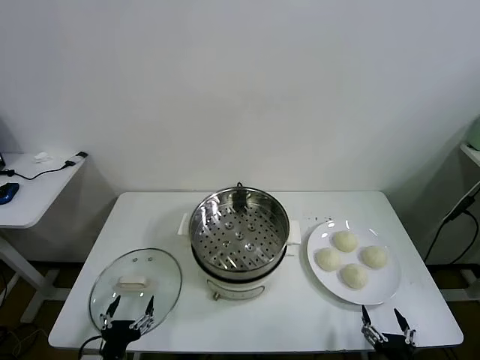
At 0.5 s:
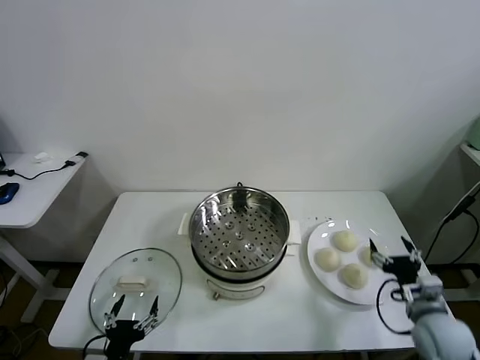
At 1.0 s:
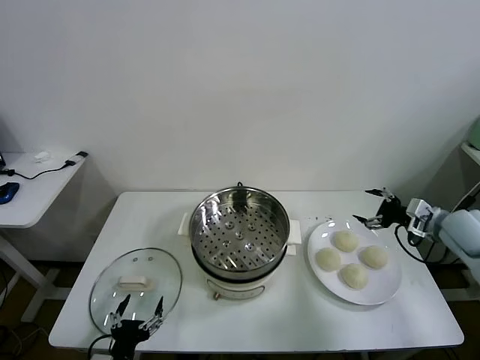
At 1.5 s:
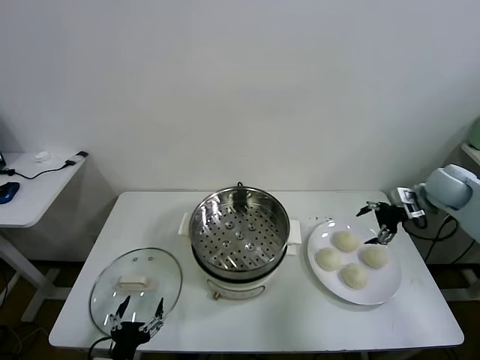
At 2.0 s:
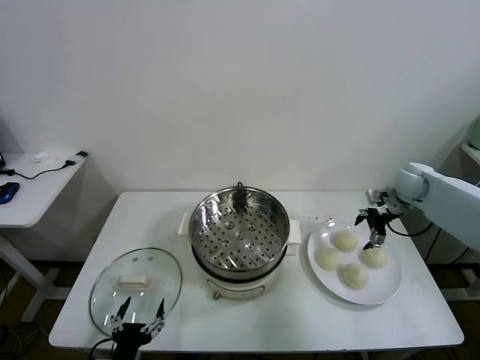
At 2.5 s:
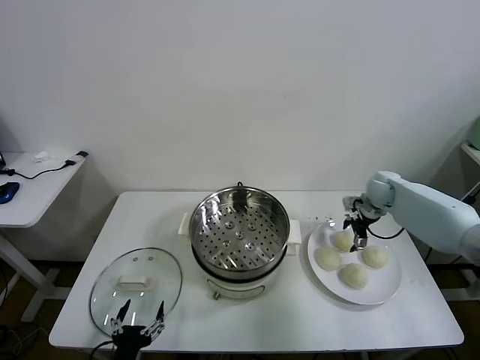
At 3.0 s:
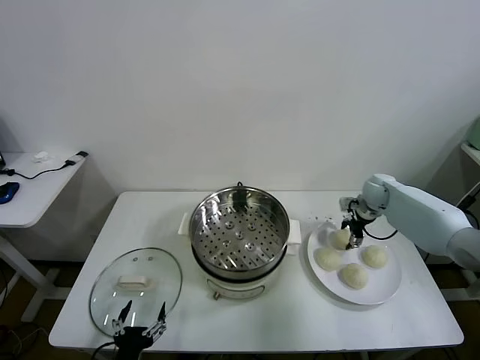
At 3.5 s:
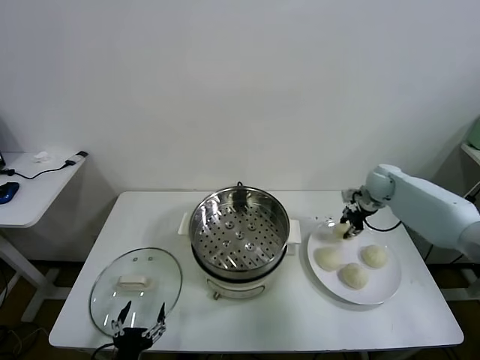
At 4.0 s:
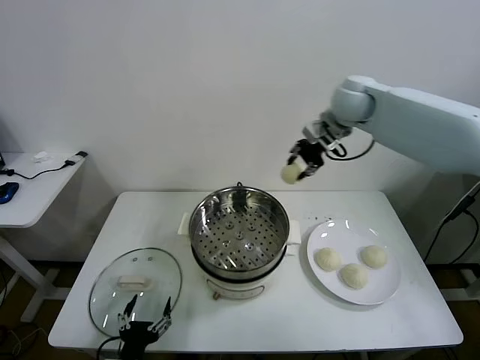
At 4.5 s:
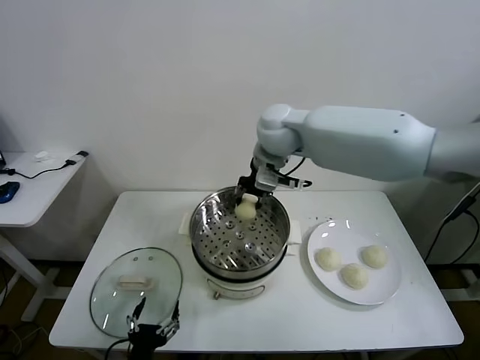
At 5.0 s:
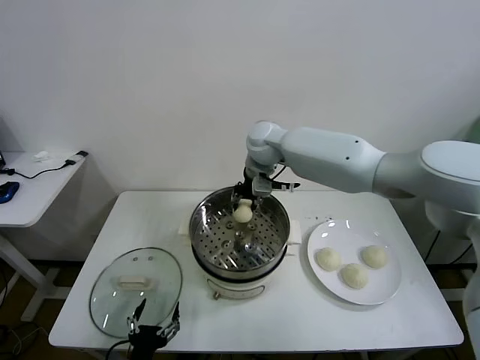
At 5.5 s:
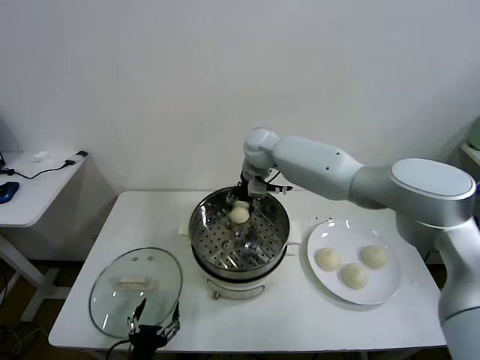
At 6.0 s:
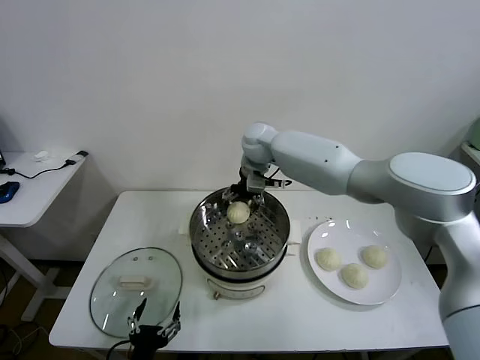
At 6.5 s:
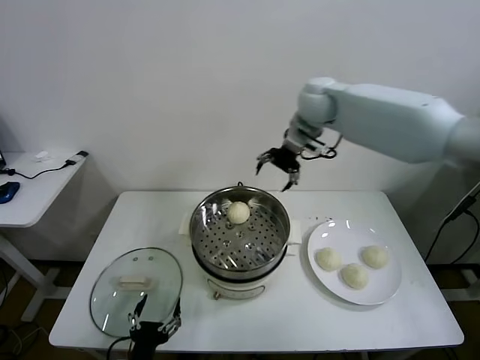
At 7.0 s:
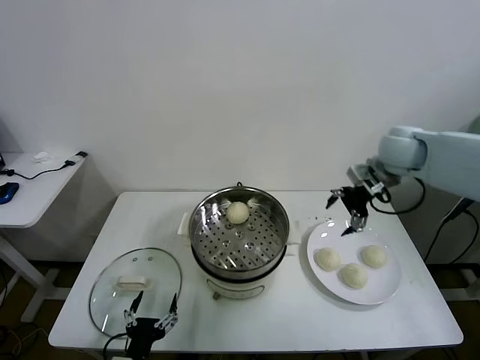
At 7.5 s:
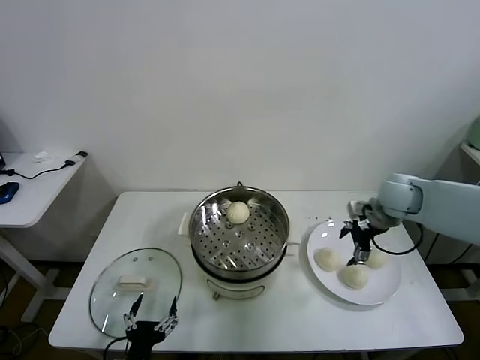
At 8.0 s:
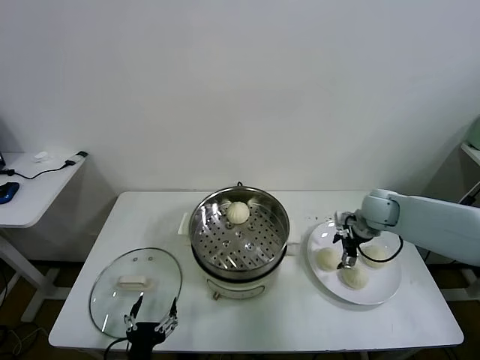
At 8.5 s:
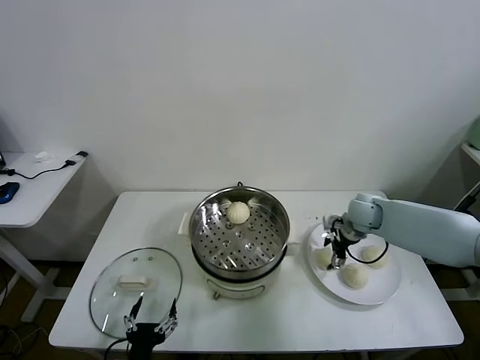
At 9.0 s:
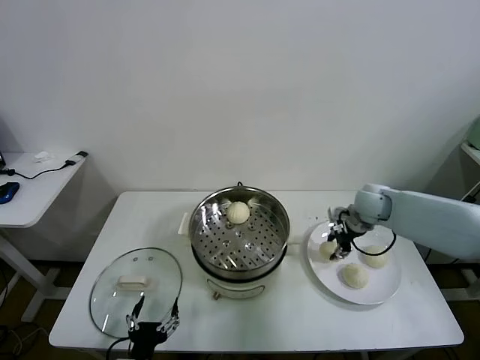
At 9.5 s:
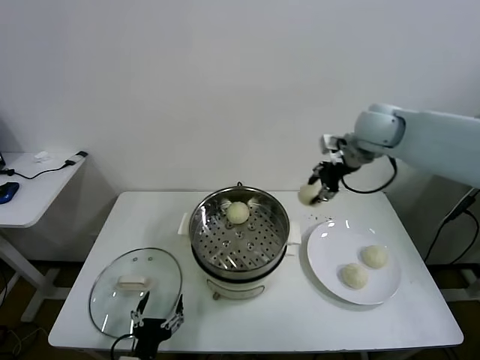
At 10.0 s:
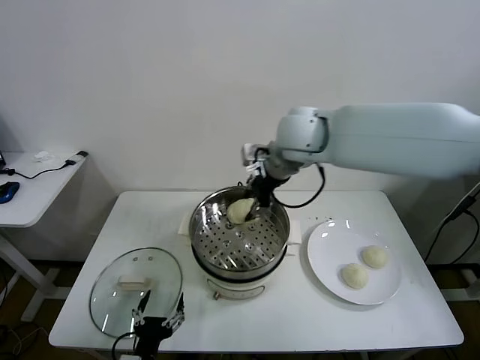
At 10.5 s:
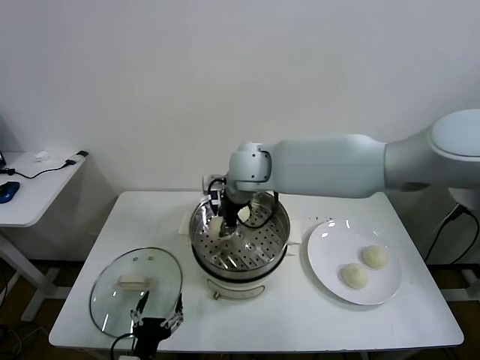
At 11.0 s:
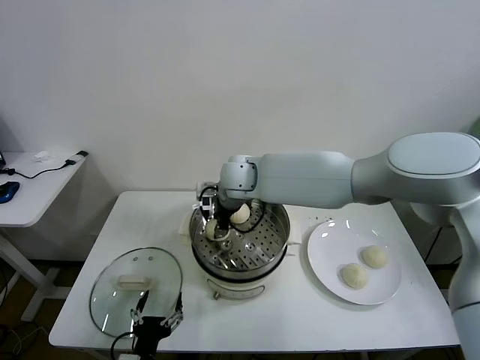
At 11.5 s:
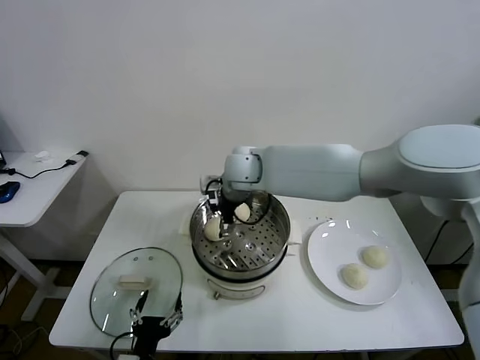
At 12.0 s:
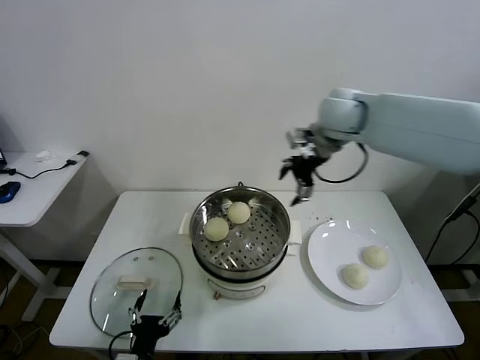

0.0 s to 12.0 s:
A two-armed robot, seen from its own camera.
Task of the whole recording: take steamed baozi put them in steamer.
Step, 0.0 to 3.0 s: Grasp the baozi in the plate with right gripper.
Step, 3.5 to 5.5 s: Place the baozi on the steamer with right gripper.
Step, 6.5 to 8.5 s: Grasp the baozi in the plate with right gripper.
Step, 9.0 to 11.5 s: Place the baozi on the steamer with right gripper.
2.0 to 4.0 s: The right gripper shifts approximately 35 cm to the left and upward, and closes its fingers.
4.0 to 6.0 s: The right gripper moves to the left, downward and forward, about 15 cm, and opens.
6.0 to 8.0 s: The right gripper moves to the right and downward, some 30 cm.
8.0 to 10.0 s: The right gripper is displaced to the left and upward by roughly 35 cm, and closes its fingers.
10.0 to 12.0 s: The right gripper goes roughly 15 cm to the right, and opens up.

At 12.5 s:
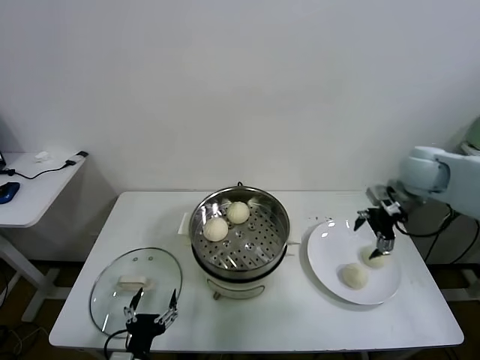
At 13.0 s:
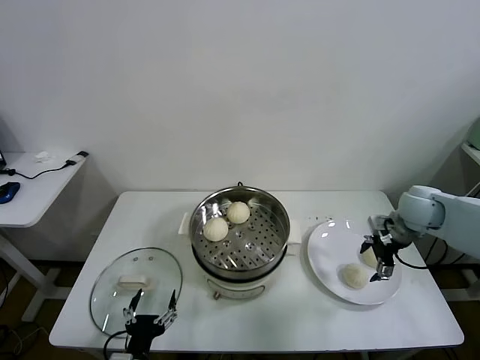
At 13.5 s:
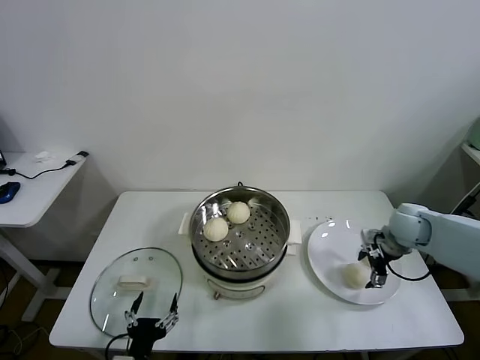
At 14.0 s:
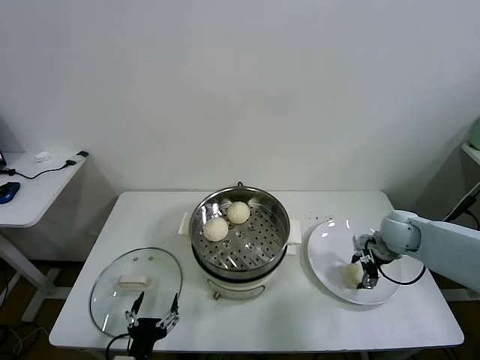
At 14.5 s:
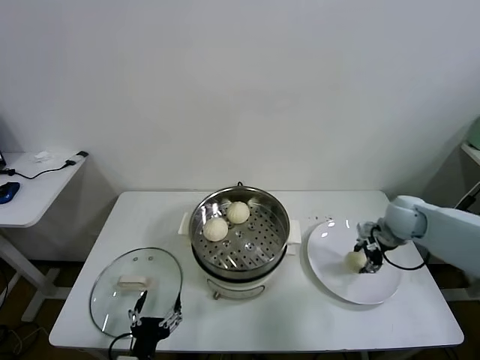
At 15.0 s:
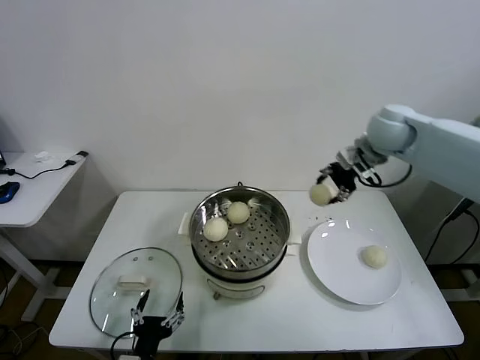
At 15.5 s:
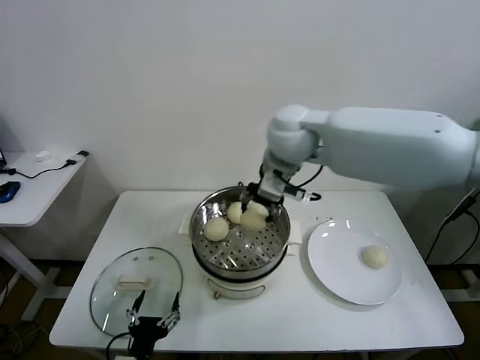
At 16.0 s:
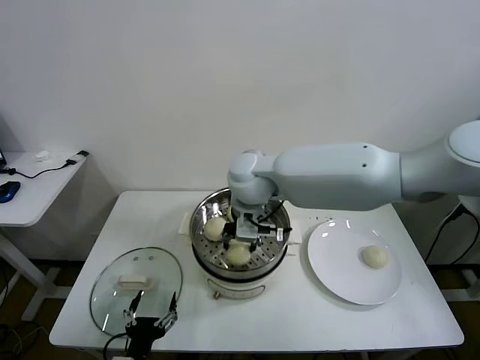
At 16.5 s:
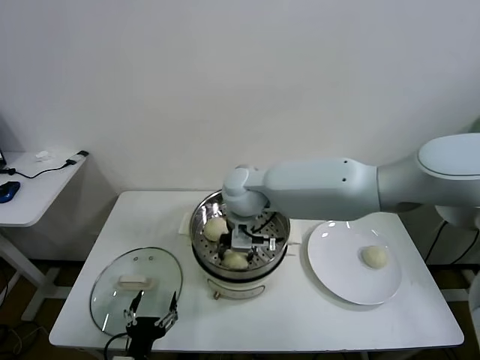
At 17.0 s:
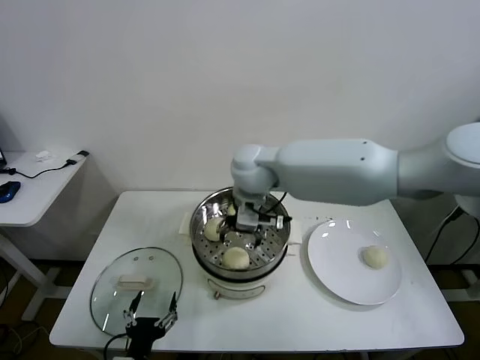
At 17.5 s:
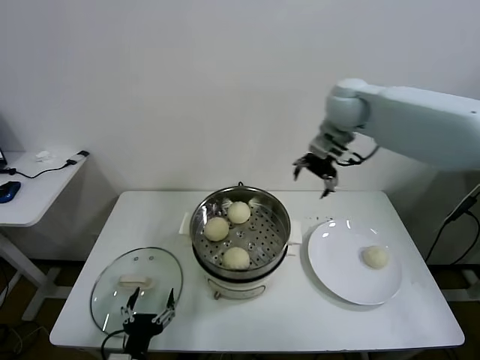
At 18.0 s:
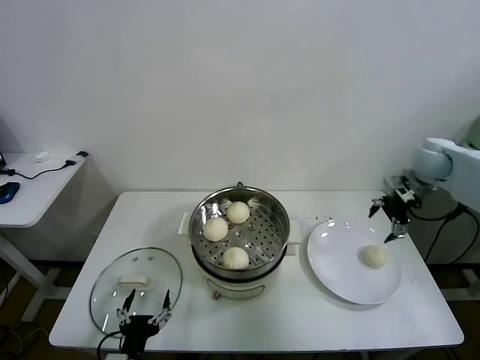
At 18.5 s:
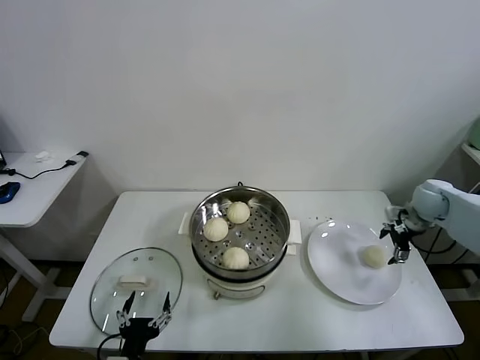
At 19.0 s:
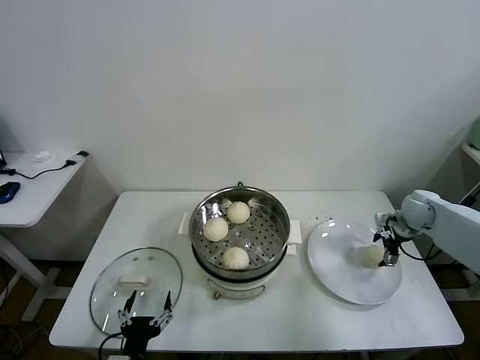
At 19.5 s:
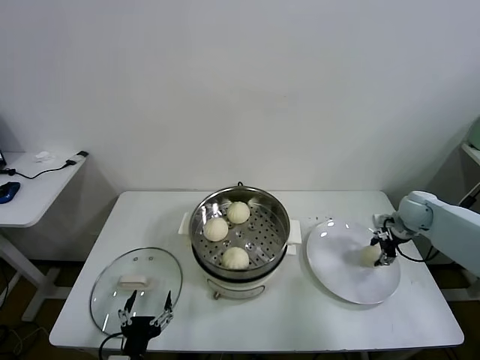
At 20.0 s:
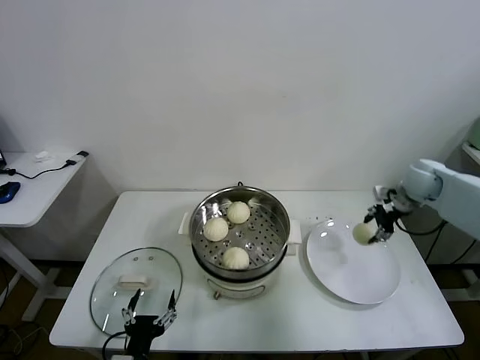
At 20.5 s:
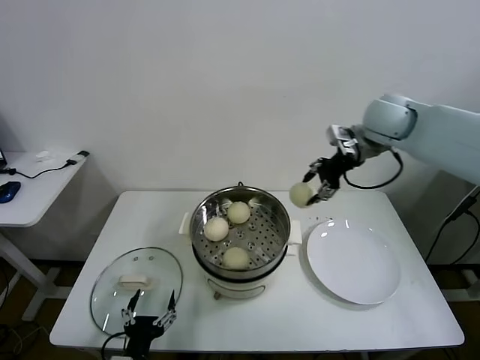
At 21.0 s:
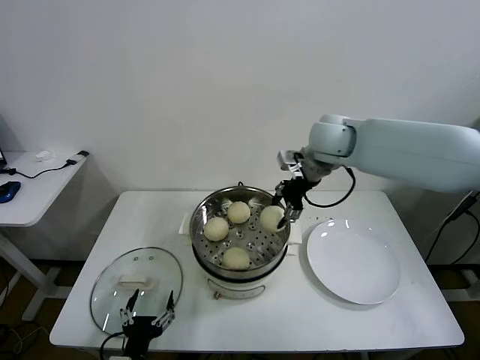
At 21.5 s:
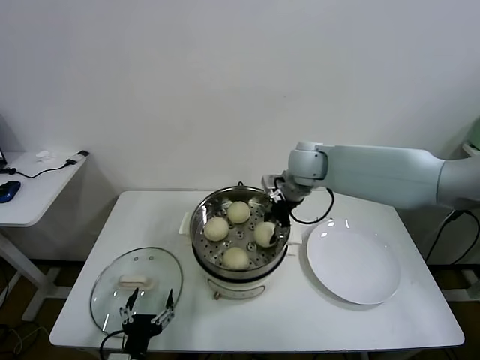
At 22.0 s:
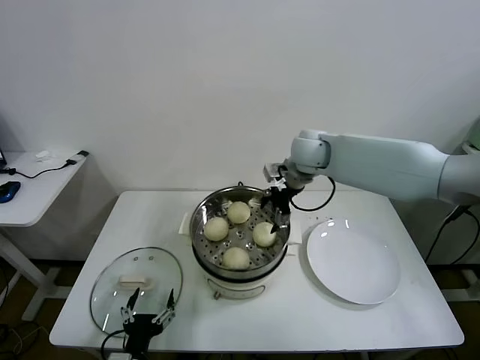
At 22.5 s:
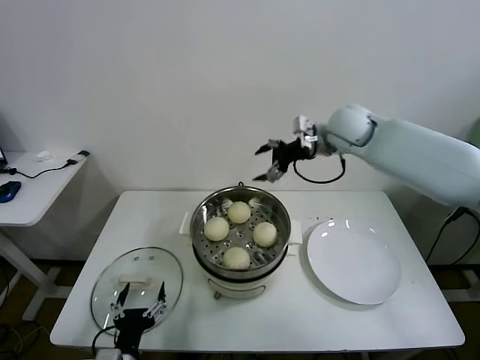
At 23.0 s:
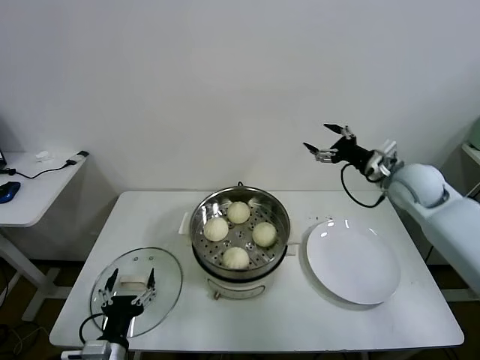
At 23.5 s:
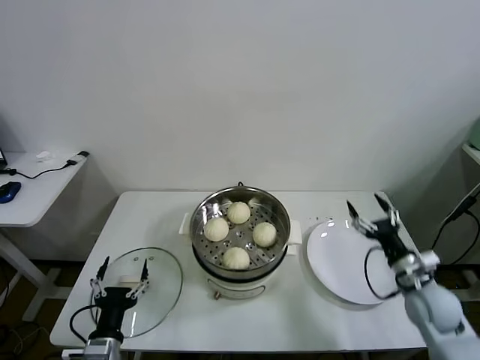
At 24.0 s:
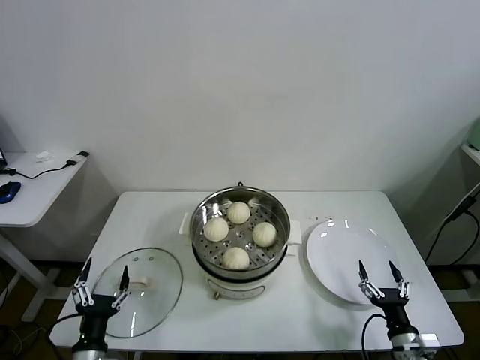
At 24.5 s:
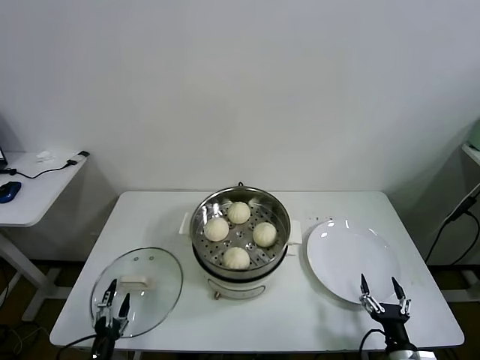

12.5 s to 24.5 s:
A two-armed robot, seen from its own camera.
Task of the whole recording: take steamed baozi put them in steamer.
Step, 12.5 to 14.0 s: Grasp the baozi in the plate with right gripper.
Step, 14.5 to 16.5 s: Place the baozi on the steamer with right gripper.
Step, 17.0 to 19.5 s: Grasp the baozi in the plate with right gripper.
Step, 20.0 to 21.5 s: Place the baozi on the steamer with right gripper.
12.5 to 14.5 s: The right gripper moves downward, approximately 10 cm, and closes up.
14.5 to 16.5 s: The right gripper travels to the left by roughly 40 cm.
16.5 to 18.5 s: The right gripper is displaced to the right by some 50 cm.
18.5 to 20.5 s: The right gripper travels upward and to the left by about 30 cm, and closes its fingers.
20.5 to 22.5 s: The right gripper moves approximately 15 cm to the left and comes back, and opens its fingers.
22.5 to 24.5 s: The right gripper goes approximately 60 cm backward and downward. Meanwhile the left gripper is displaced to the left and downward by roughly 15 cm.

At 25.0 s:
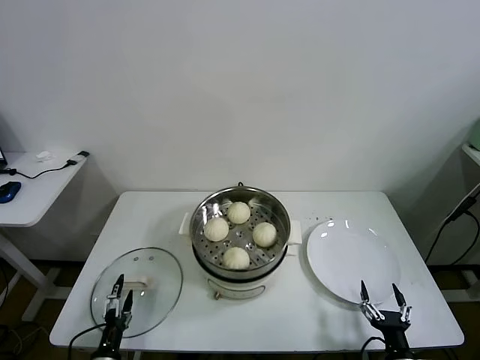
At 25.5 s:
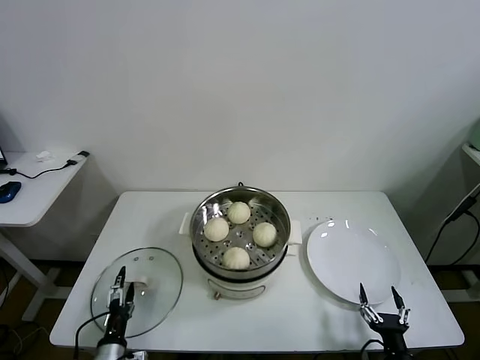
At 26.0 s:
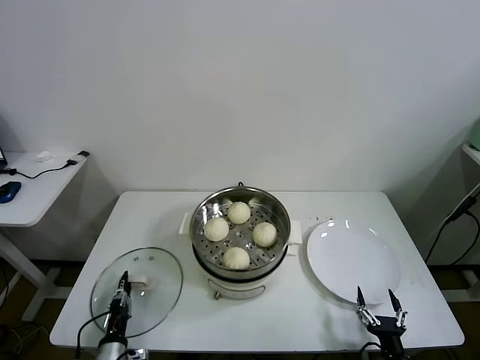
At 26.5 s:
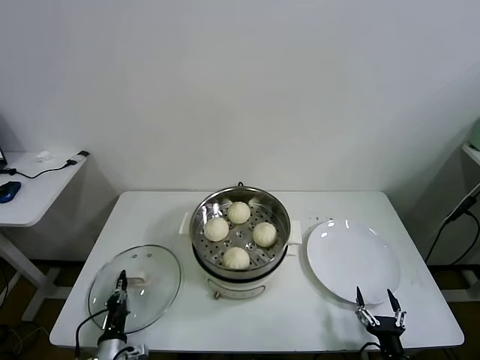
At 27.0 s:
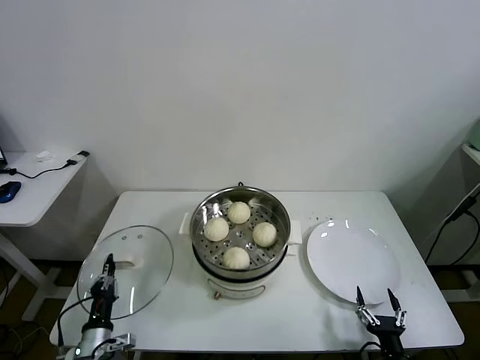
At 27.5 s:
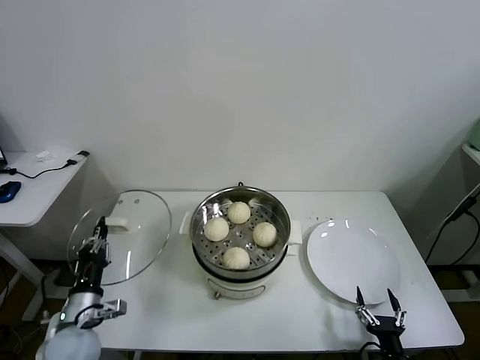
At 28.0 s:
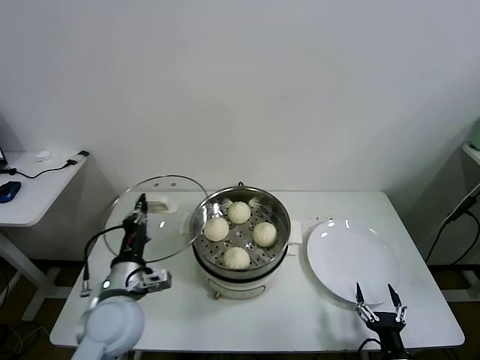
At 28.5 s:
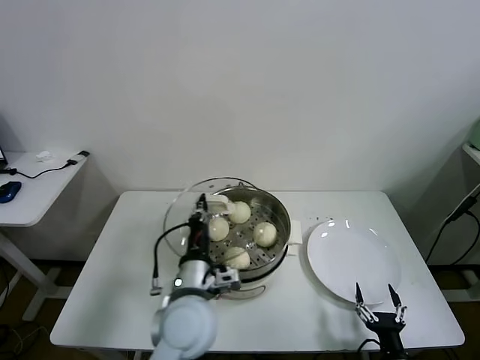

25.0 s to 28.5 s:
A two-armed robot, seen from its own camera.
Task of the whole recording: take steamed baozi put them in steamer.
25.0 to 27.0 s: The left gripper moves forward, about 5 cm, and closes.
27.0 to 28.5 s: The left gripper goes about 30 cm to the right and upward.
